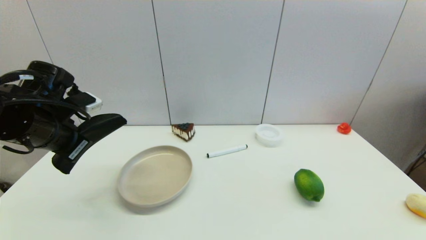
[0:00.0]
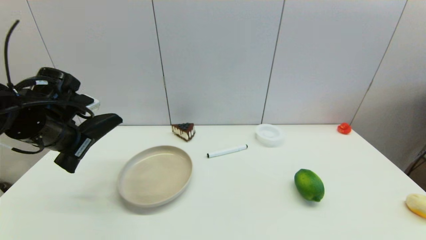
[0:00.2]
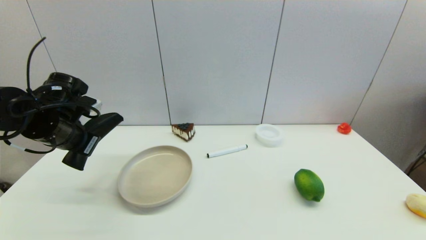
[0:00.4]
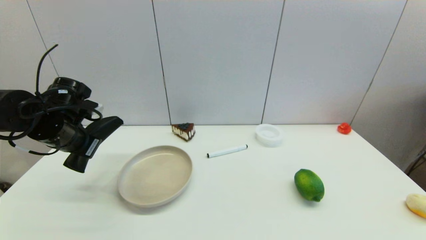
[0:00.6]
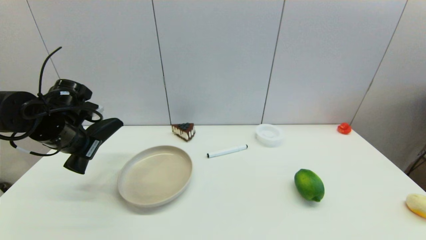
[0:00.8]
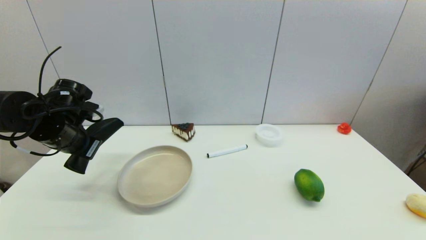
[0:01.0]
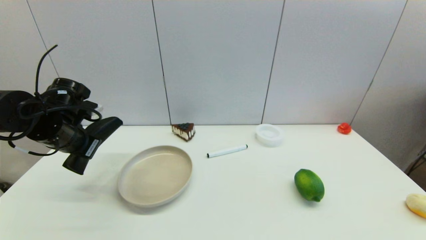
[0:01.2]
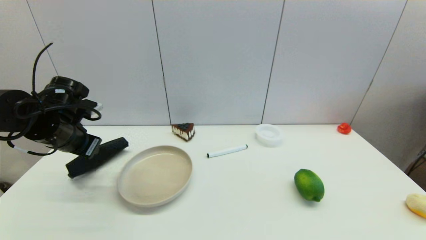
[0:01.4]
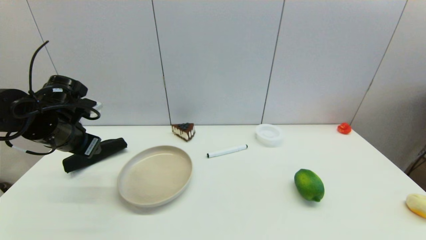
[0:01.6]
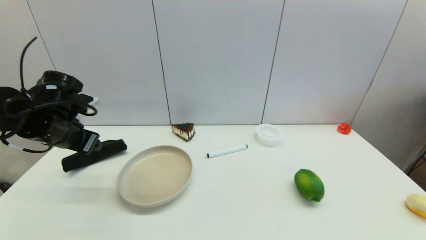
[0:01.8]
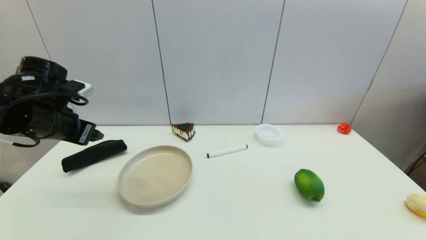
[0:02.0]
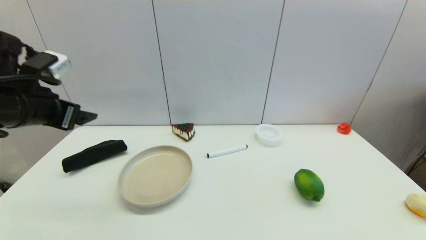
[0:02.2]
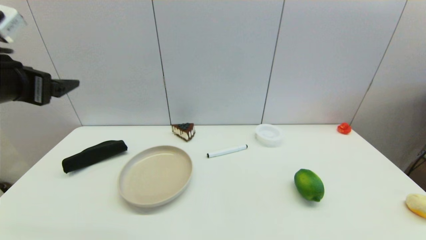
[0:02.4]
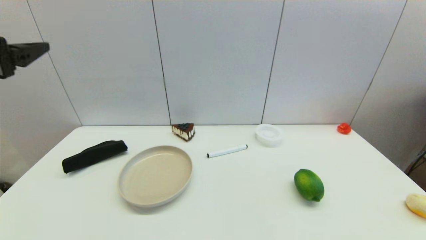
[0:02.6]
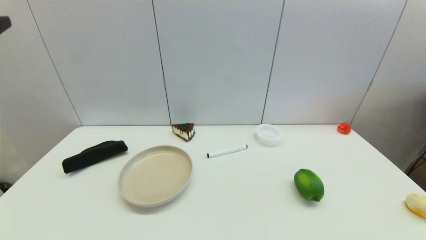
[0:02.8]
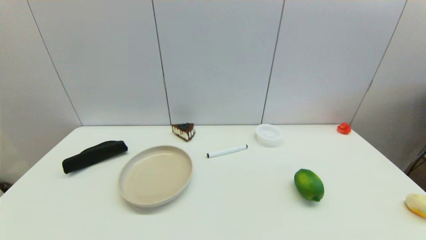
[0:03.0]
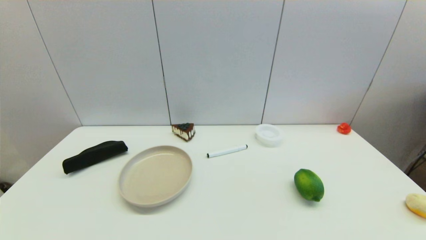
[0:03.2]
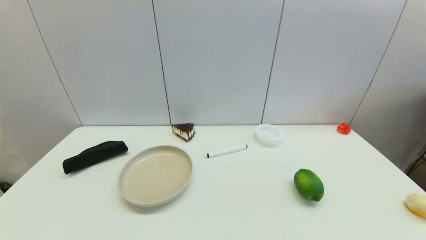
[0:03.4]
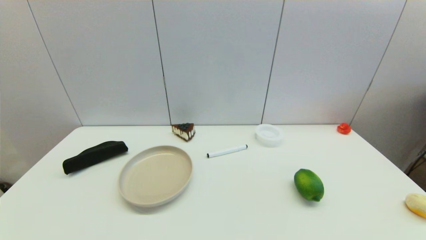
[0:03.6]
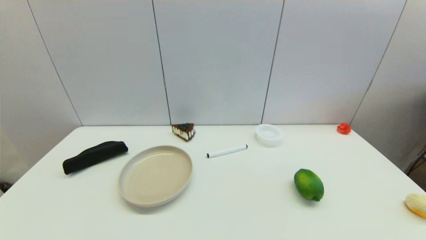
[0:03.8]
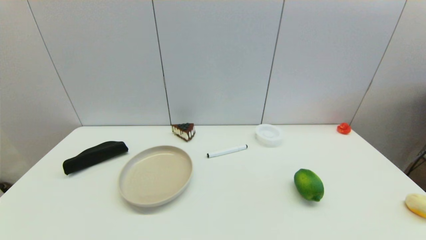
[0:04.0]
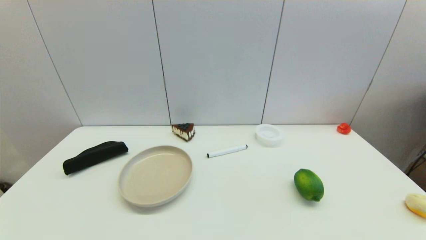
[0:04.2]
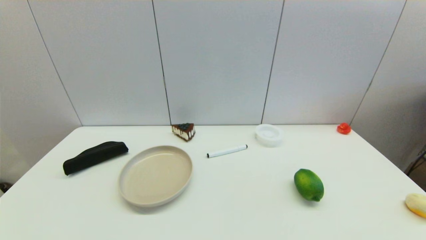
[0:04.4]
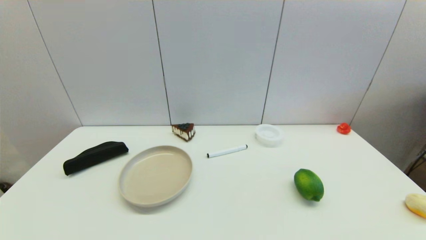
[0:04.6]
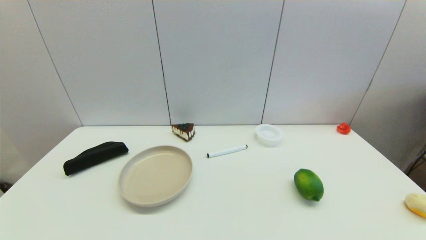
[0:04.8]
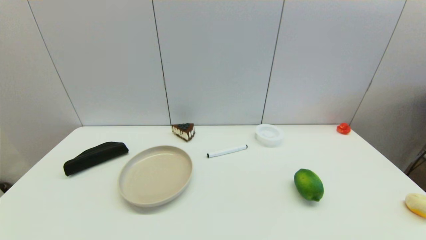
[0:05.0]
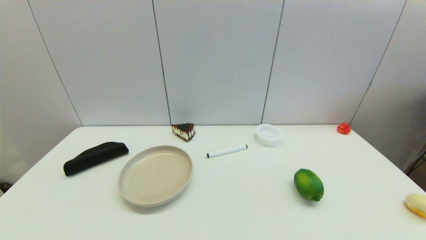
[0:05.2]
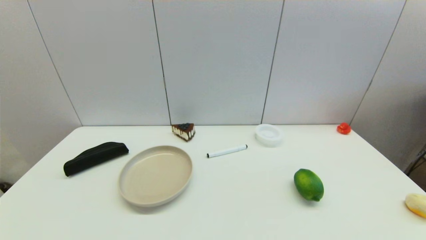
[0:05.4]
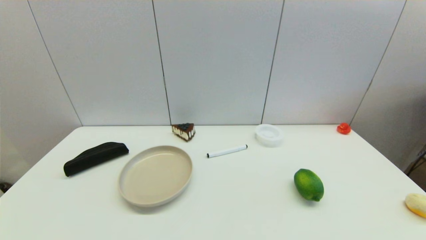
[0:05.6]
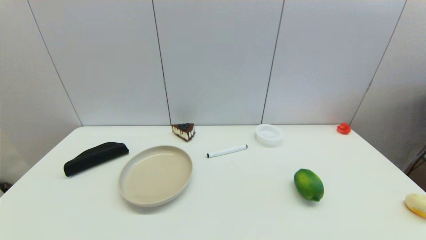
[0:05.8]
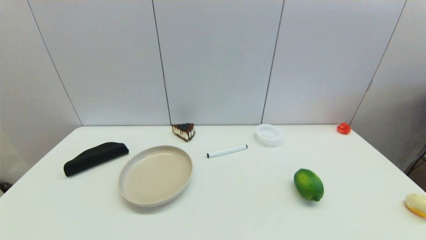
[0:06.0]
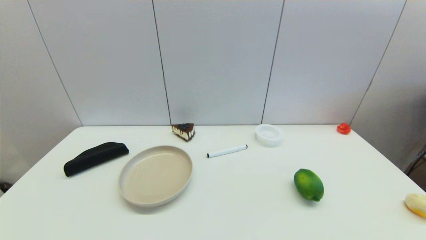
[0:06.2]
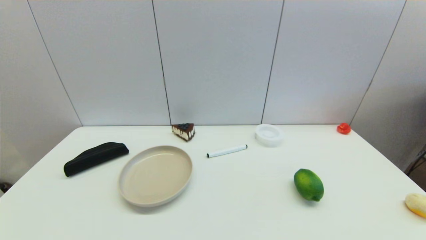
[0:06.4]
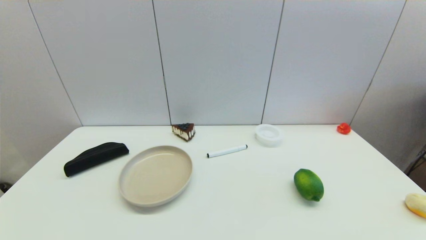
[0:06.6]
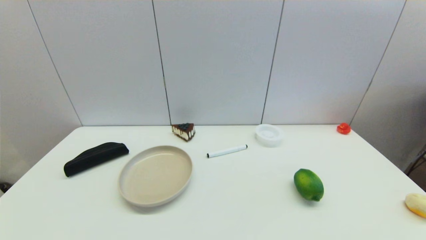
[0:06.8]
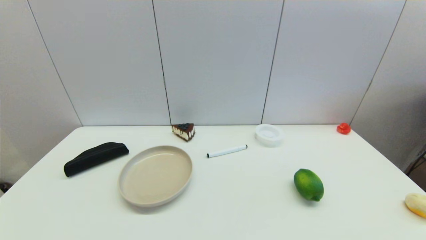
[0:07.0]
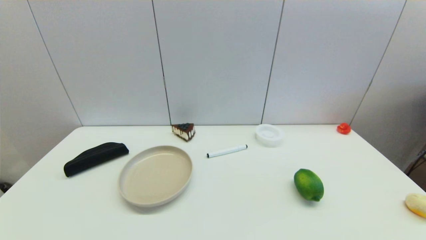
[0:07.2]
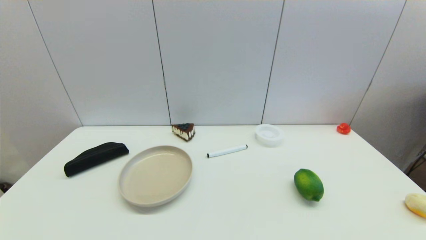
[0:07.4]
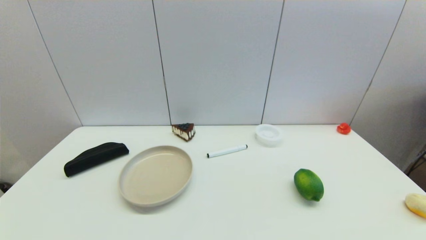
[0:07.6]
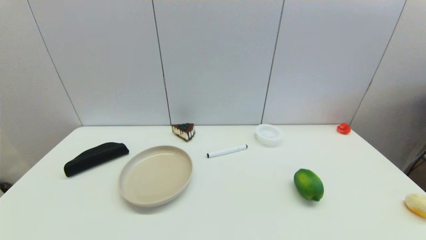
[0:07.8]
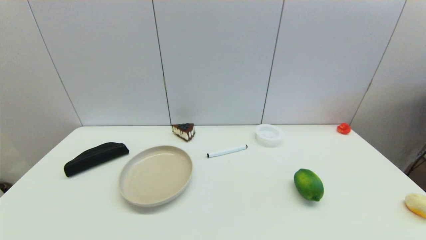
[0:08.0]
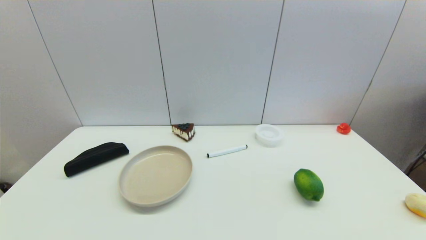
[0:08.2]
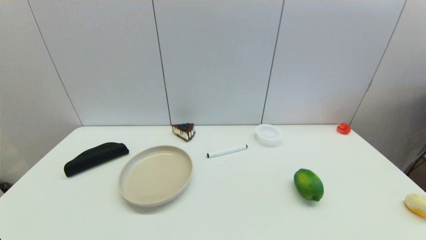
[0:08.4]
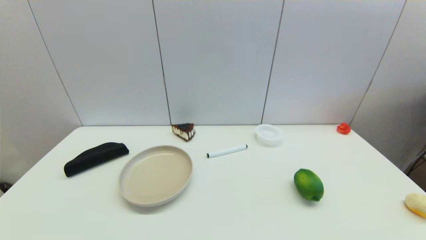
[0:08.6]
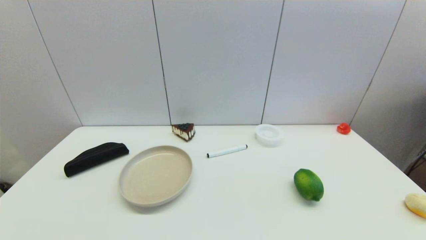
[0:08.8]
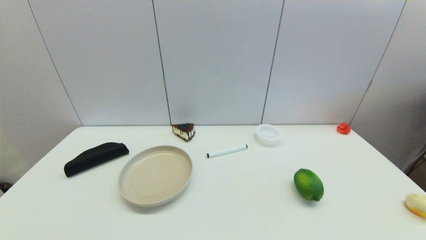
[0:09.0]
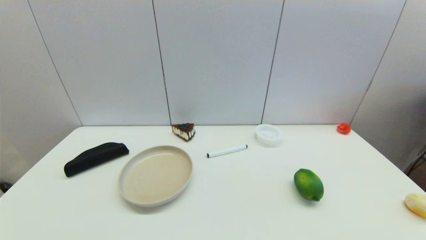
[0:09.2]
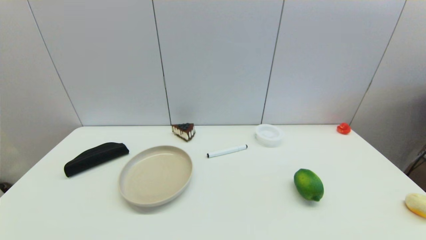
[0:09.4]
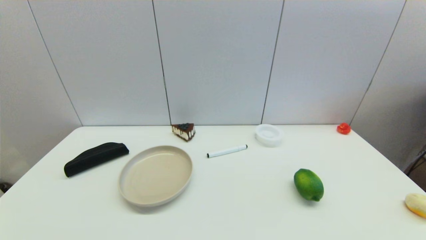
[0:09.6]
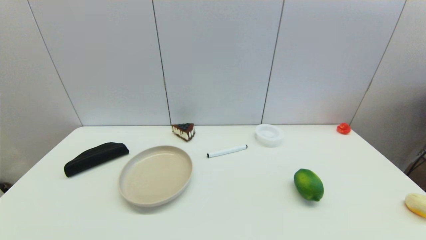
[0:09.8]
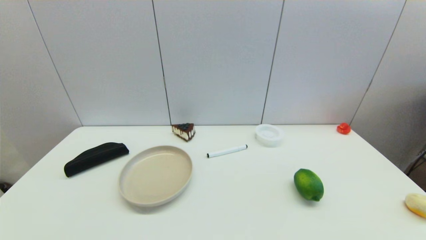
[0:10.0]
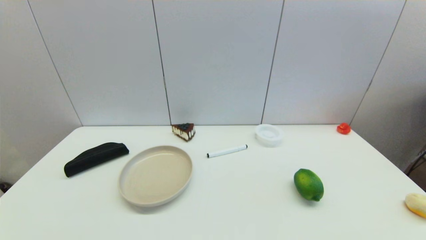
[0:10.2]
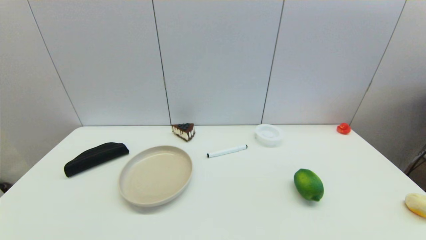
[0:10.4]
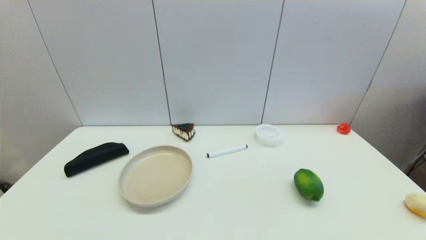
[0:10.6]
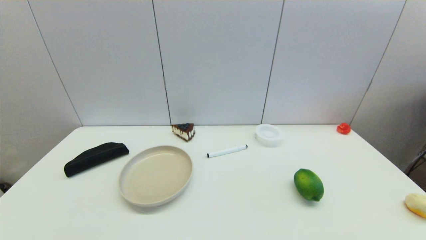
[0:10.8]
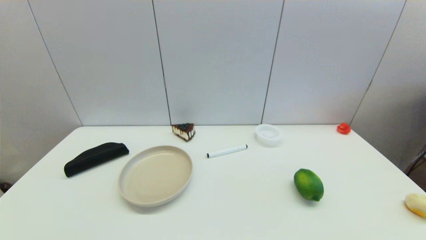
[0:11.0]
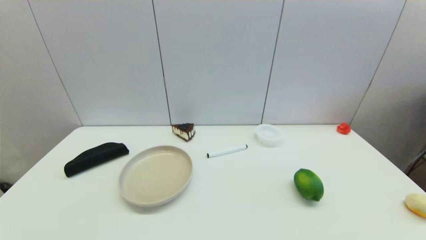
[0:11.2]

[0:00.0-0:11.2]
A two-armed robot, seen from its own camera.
0:00.0 to 0:01.6: The left gripper opens its fingers.
0:01.6 to 0:03.2: The left gripper travels backward and upward by some 30 cm, and opens its fingers.
0:09.6 to 0:11.2: The two grippers keep their place.
